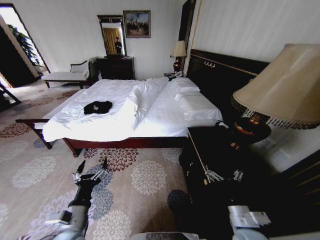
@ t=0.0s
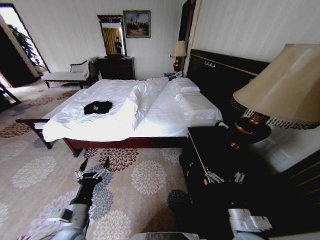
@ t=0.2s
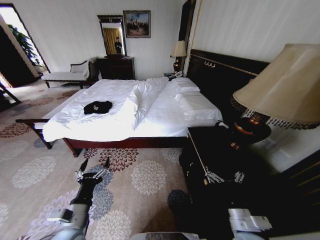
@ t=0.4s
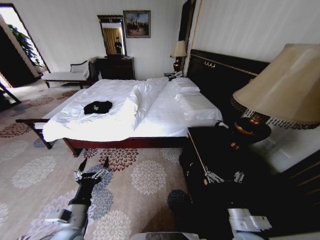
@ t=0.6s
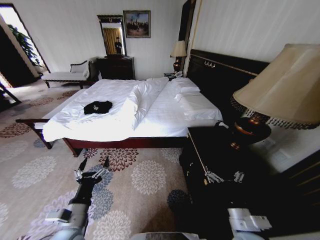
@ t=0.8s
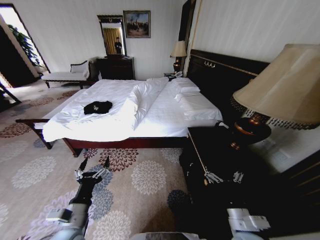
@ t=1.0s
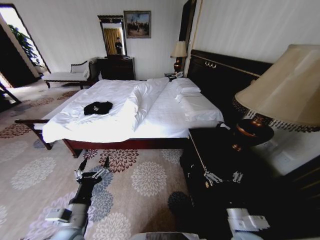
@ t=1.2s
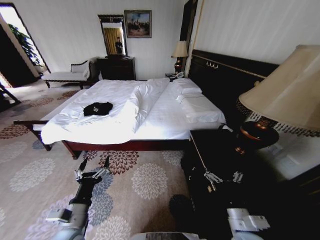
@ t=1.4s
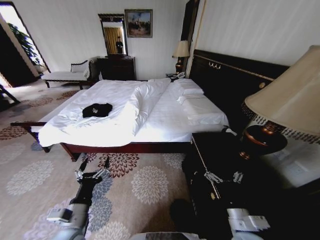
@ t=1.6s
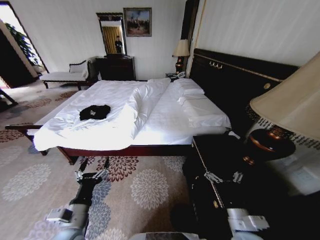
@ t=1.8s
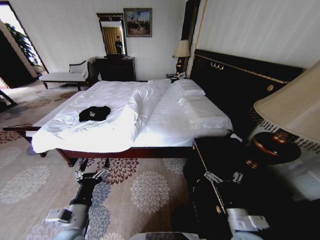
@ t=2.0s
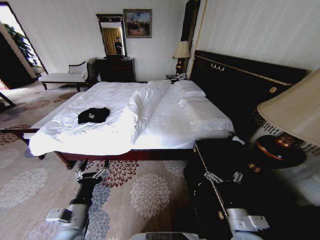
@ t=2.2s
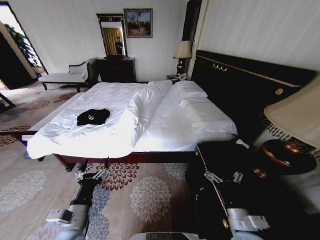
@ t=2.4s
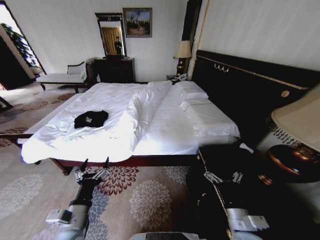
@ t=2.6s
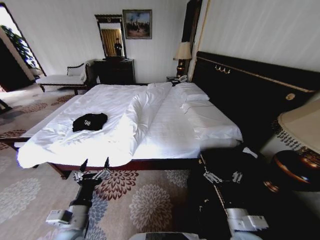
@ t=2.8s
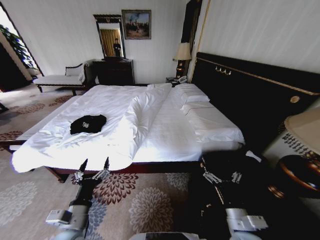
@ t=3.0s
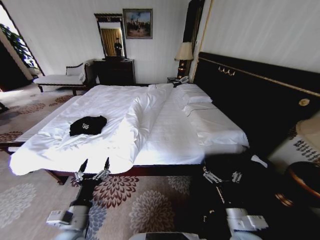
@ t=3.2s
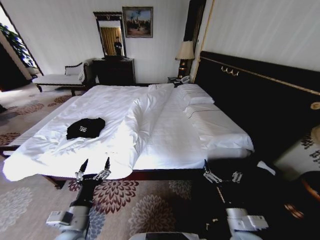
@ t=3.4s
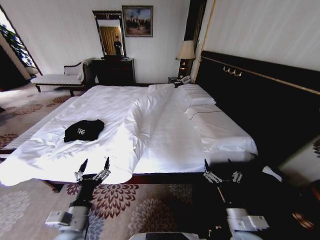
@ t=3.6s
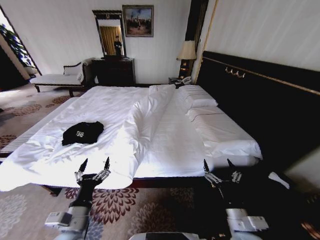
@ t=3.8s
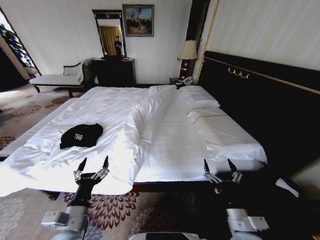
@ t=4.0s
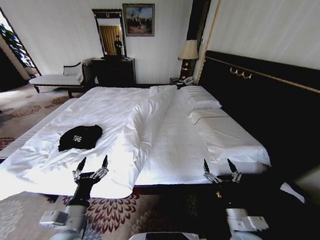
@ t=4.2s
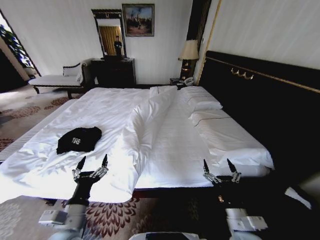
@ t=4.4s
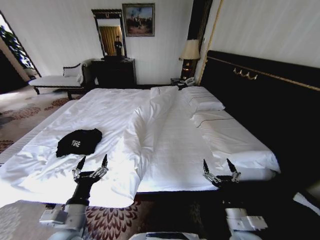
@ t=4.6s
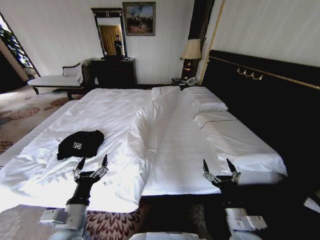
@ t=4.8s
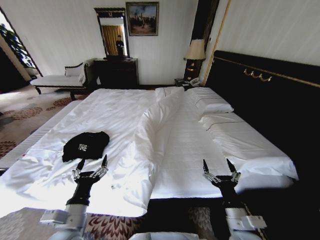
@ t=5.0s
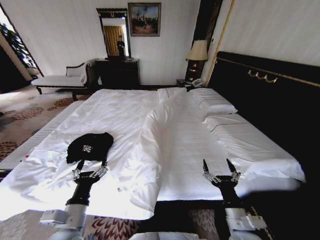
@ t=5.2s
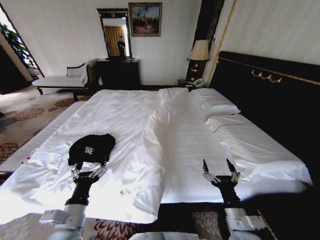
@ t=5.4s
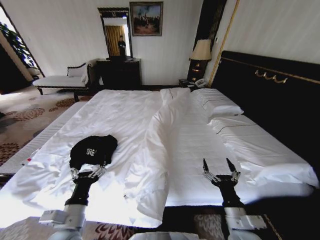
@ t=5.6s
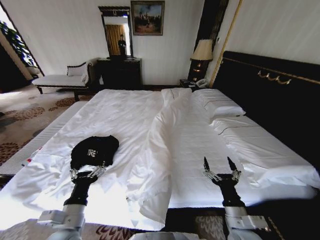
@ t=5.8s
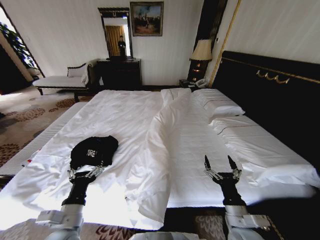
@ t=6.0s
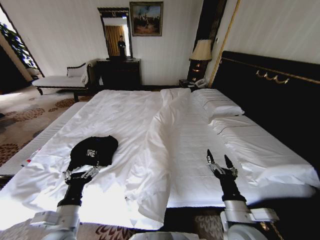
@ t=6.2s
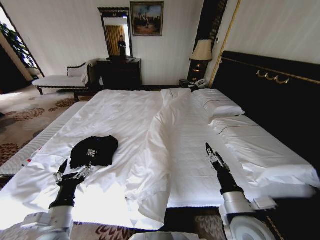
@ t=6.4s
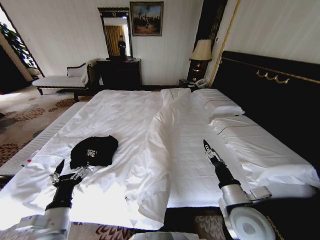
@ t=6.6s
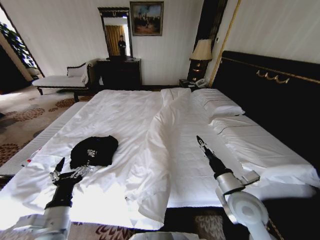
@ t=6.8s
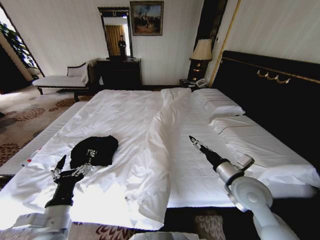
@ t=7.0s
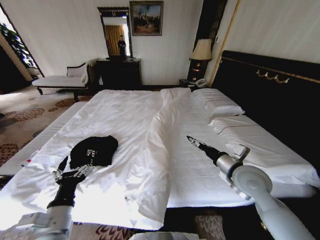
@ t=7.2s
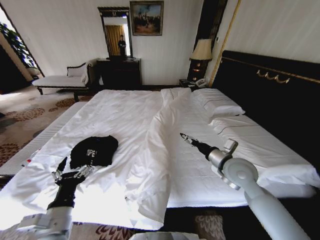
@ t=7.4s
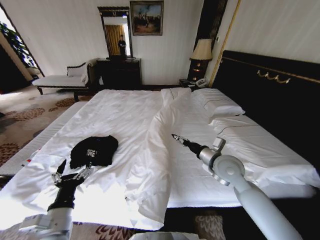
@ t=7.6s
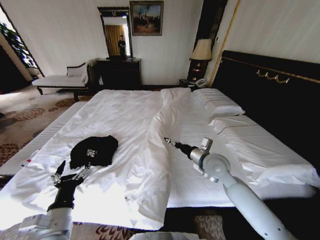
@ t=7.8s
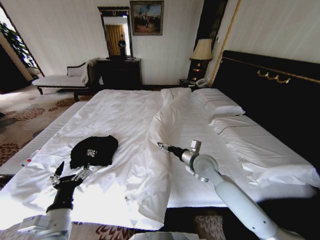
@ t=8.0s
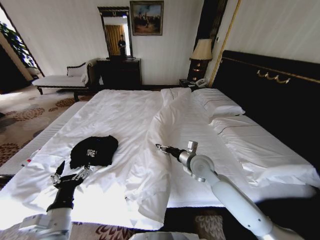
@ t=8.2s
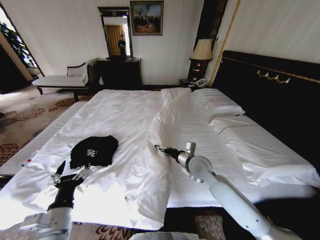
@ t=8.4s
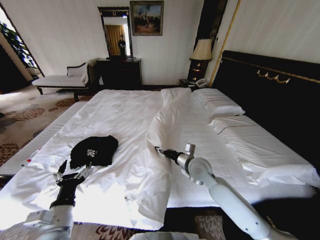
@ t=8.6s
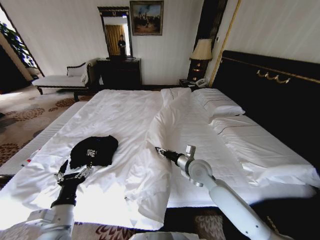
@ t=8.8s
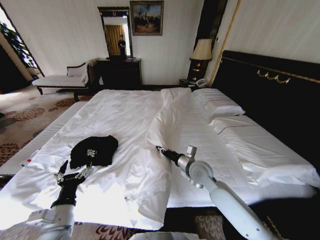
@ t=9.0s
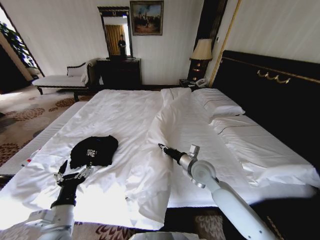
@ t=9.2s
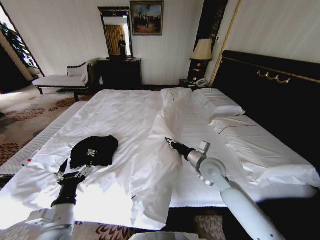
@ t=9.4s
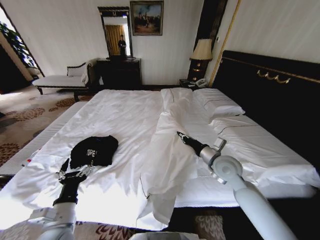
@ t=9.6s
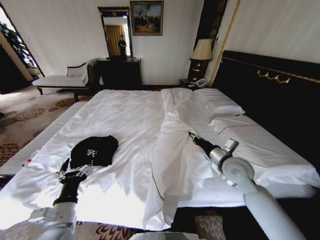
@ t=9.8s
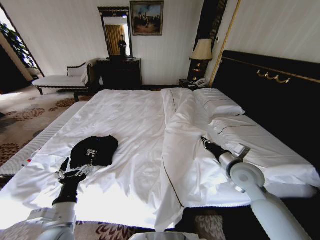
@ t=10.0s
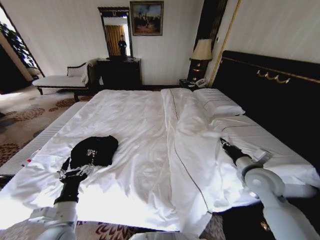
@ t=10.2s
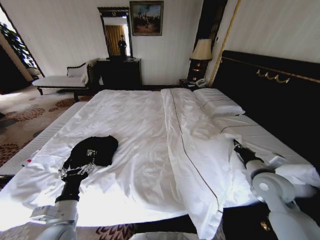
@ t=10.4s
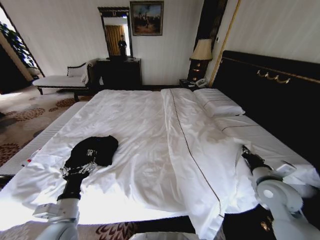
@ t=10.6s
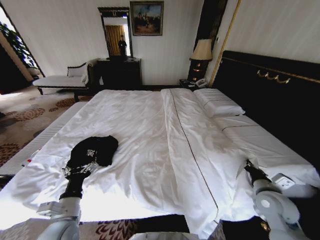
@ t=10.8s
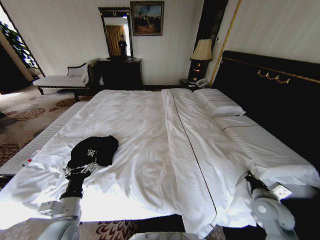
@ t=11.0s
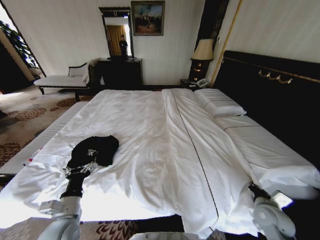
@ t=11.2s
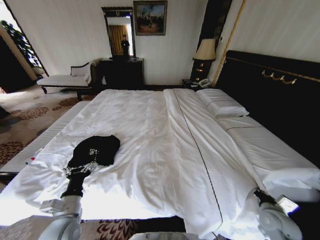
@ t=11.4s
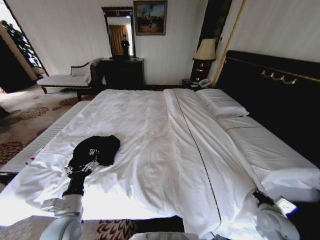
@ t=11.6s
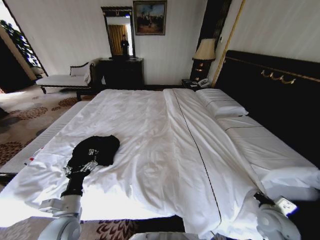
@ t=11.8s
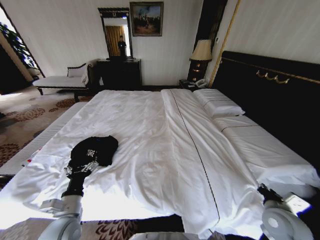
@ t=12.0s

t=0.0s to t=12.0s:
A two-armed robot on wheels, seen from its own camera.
Task of the whole recording: Fold the clothes on the bed.
t=6.0s to t=7.6s: The right gripper heads forward and upward, covering some 20 cm.
t=7.6s to t=9.0s: The right gripper shifts roughly 10 cm to the left and downward, and closes its fingers.
t=9.0s to t=10.4s: The right gripper shifts some 20 cm to the right.
t=10.4s to t=12.0s: The right gripper shifts some 10 cm backward and downward.

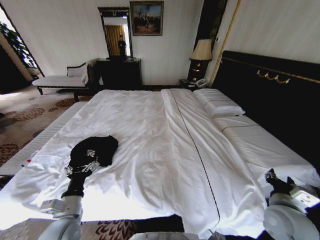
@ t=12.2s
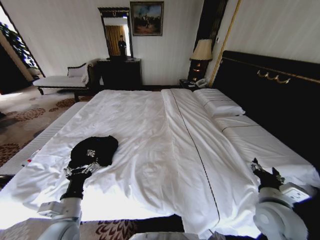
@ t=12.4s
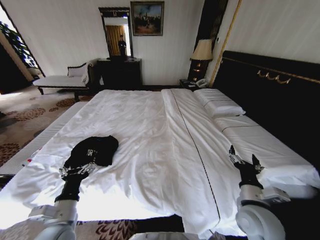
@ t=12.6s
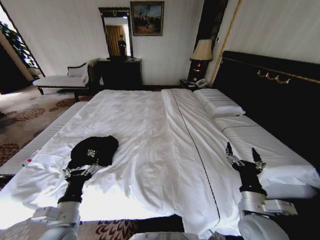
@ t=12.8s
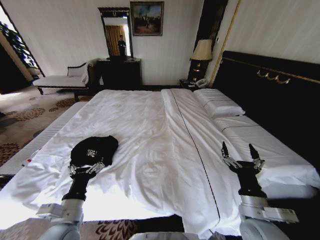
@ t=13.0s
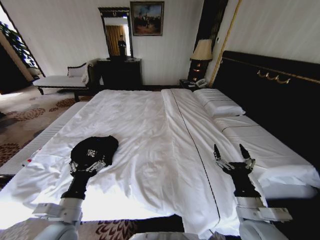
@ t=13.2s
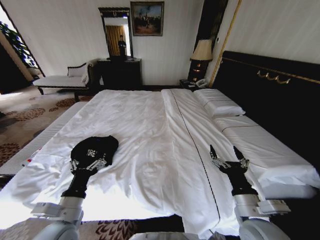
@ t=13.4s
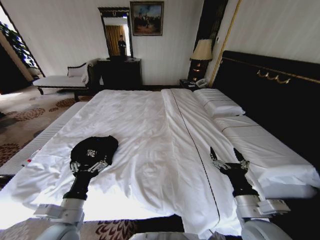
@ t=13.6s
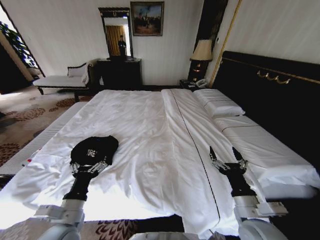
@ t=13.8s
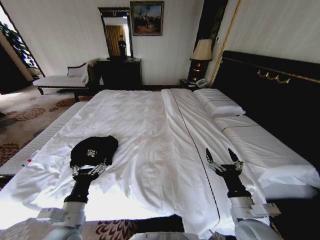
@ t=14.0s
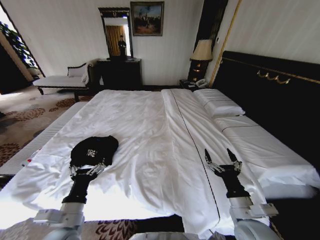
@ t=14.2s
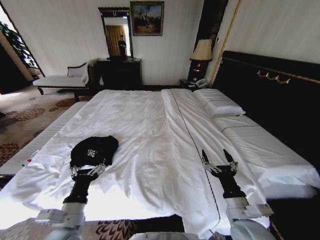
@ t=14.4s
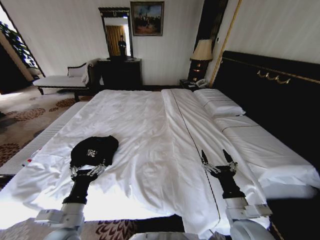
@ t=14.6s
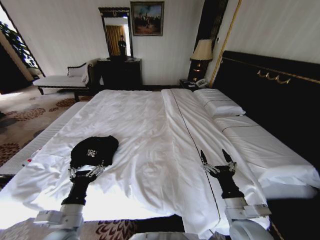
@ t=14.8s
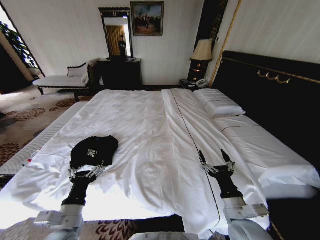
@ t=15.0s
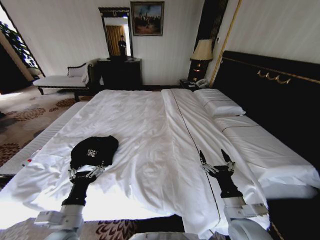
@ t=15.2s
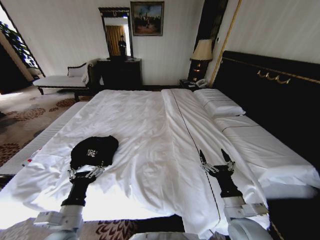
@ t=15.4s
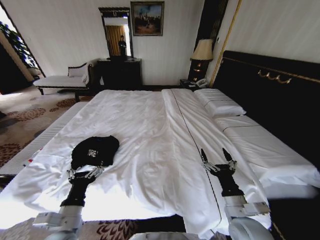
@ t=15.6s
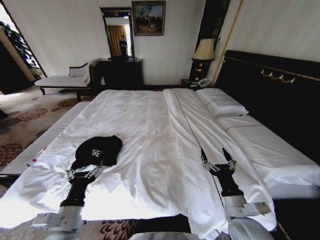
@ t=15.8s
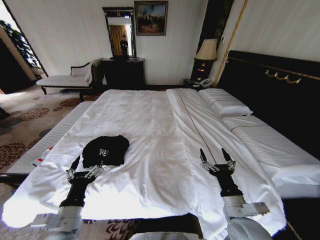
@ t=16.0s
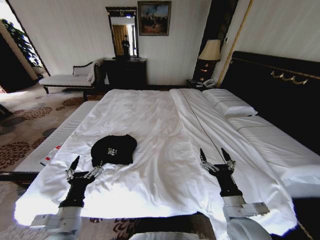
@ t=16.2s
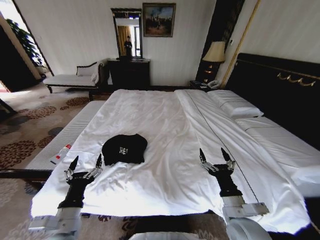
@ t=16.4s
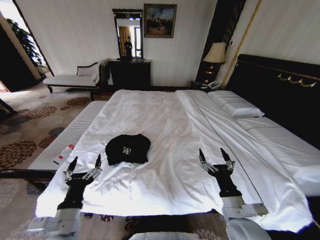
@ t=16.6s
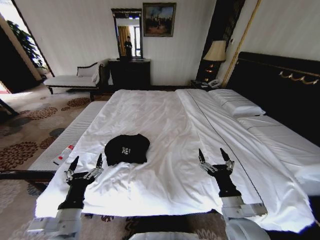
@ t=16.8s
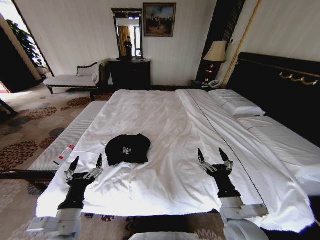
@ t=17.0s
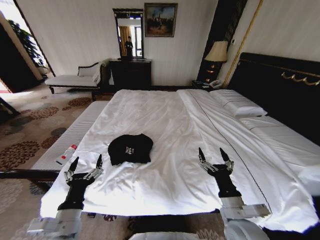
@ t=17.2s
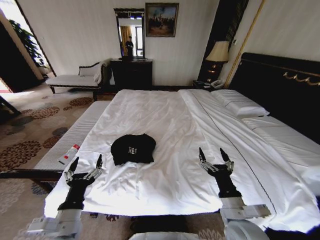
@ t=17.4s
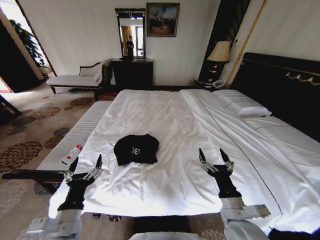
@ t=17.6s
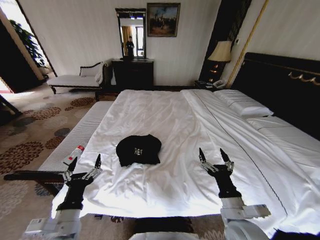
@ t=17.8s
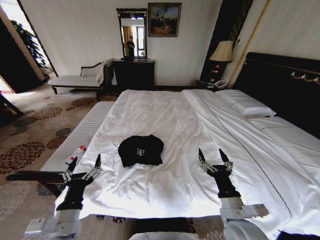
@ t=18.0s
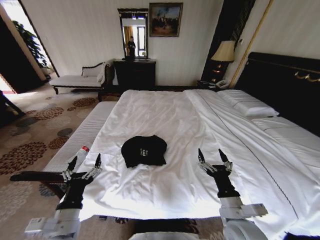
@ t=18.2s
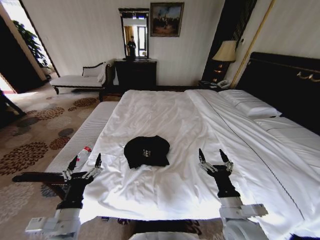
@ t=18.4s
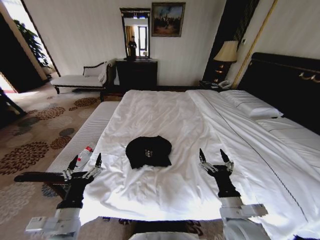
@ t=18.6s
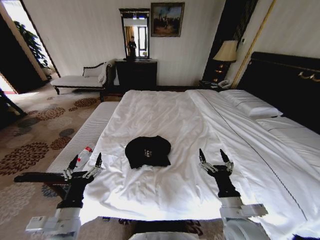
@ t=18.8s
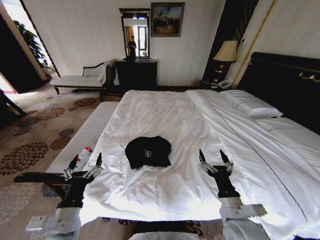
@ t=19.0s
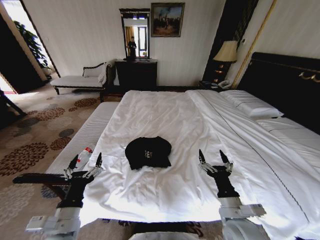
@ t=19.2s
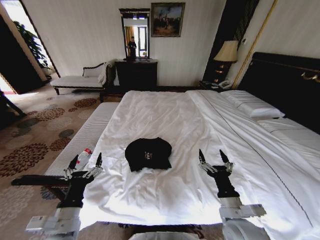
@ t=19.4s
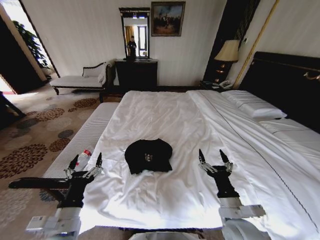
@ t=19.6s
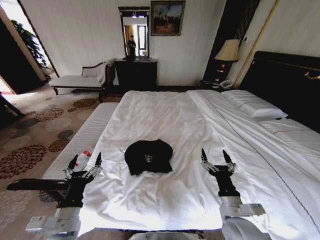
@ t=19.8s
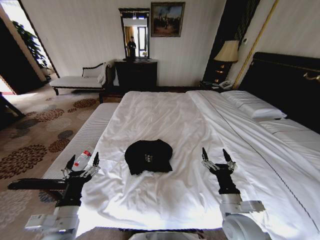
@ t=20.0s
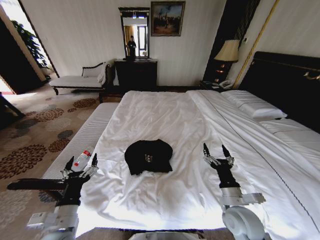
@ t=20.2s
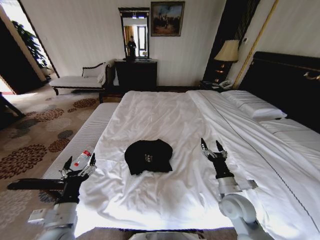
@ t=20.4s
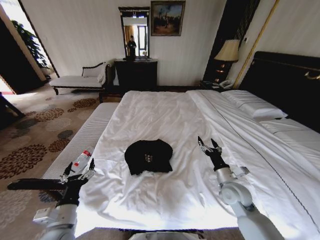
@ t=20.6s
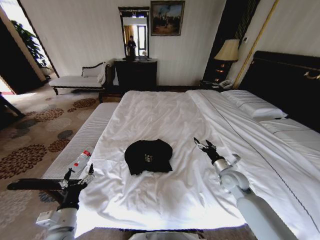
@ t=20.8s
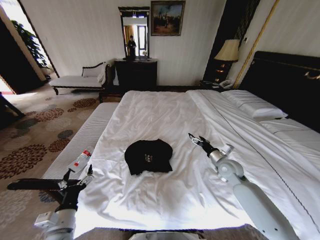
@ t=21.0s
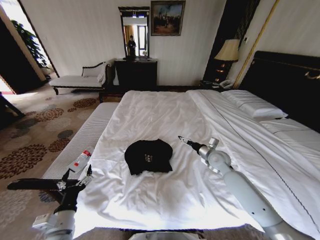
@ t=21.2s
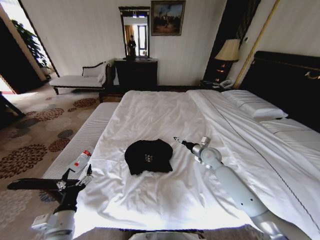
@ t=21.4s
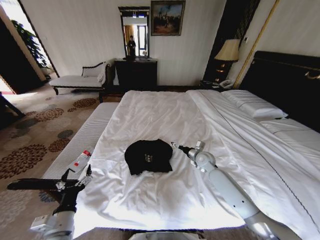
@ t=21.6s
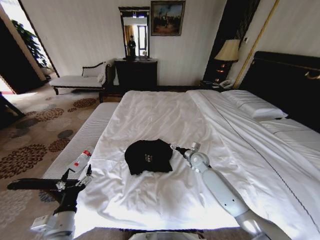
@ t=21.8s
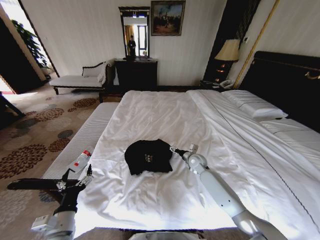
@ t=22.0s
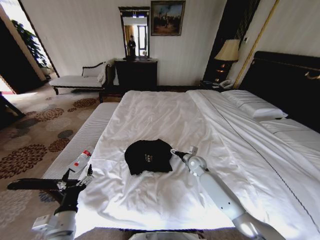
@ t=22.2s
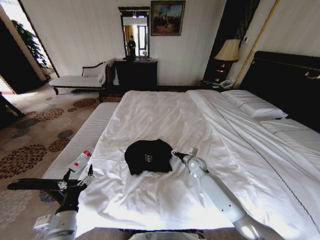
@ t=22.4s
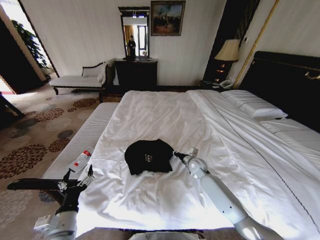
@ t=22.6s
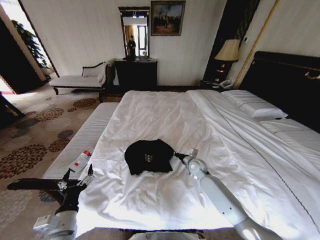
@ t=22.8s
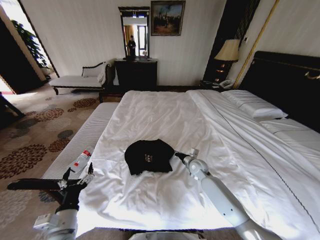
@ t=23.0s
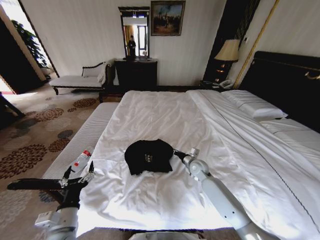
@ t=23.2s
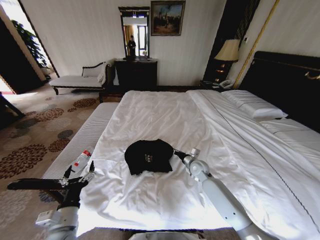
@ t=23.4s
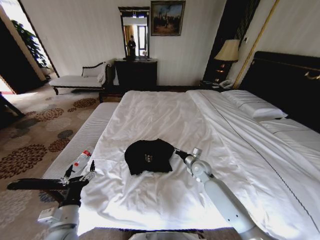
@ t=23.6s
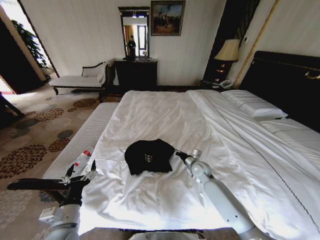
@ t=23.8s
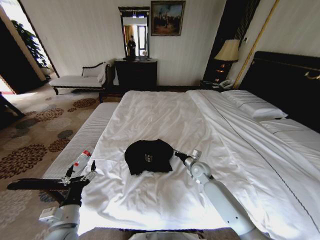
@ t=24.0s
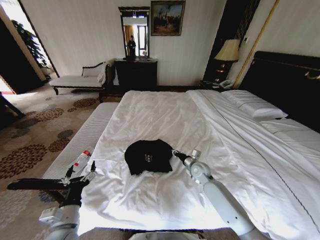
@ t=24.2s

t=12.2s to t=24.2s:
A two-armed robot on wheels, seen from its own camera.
Task of the whole recording: Fold the clothes on the bed.
t=12.2s to t=13.8s: The right gripper goes some 10 cm to the left, and opens up.
t=13.8s to t=15.2s: There are only small adjustments of the grippers.
t=19.8s to t=21.2s: The left gripper heads downward, covering roughly 5 cm. The right gripper goes some 25 cm forward.
t=21.2s to t=22.6s: The right gripper shifts approximately 10 cm downward and to the left, and closes its fingers.
t=22.6s to t=24.2s: The grippers move only a little.
